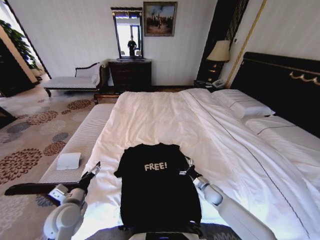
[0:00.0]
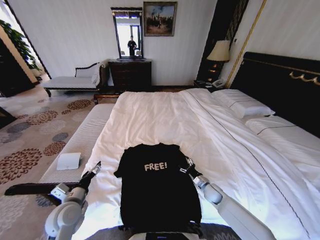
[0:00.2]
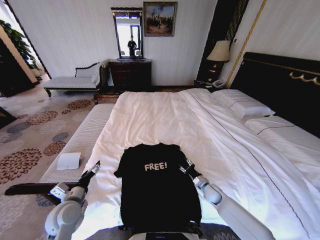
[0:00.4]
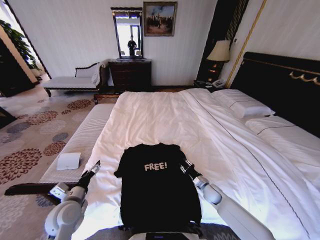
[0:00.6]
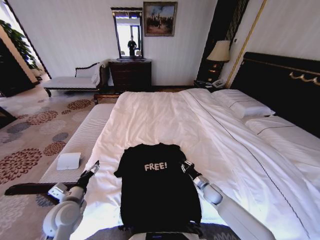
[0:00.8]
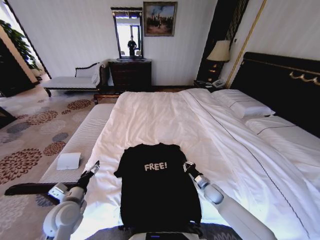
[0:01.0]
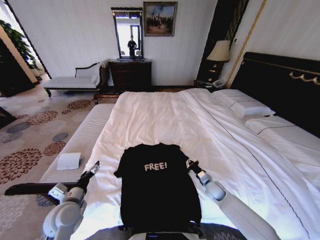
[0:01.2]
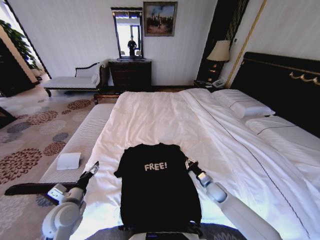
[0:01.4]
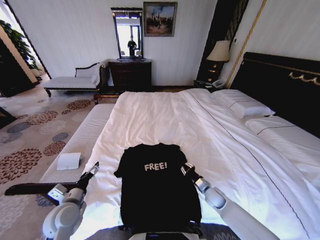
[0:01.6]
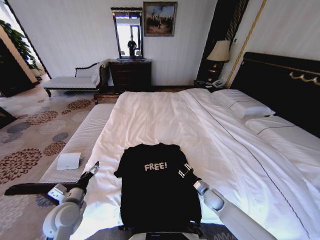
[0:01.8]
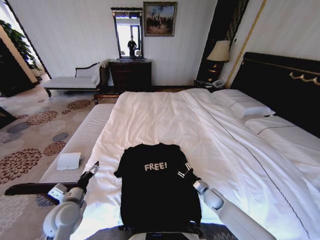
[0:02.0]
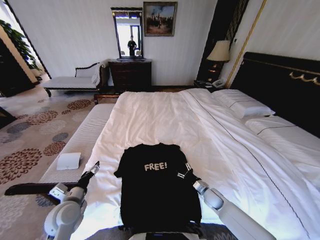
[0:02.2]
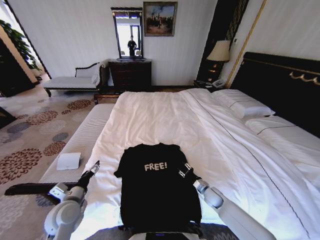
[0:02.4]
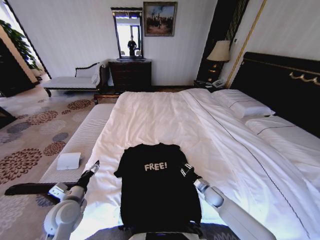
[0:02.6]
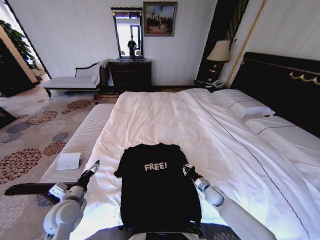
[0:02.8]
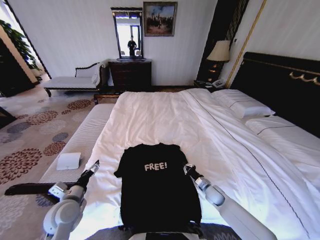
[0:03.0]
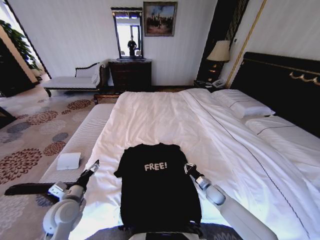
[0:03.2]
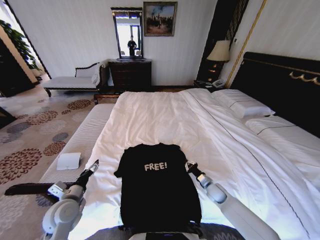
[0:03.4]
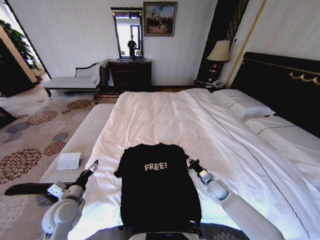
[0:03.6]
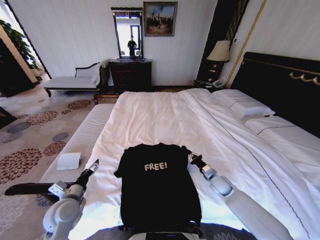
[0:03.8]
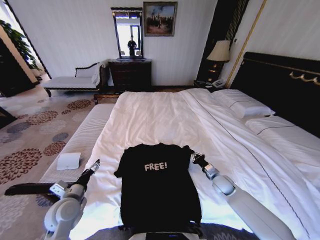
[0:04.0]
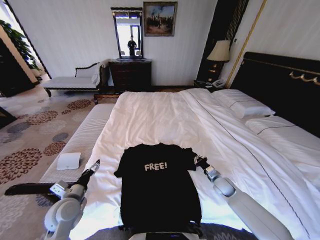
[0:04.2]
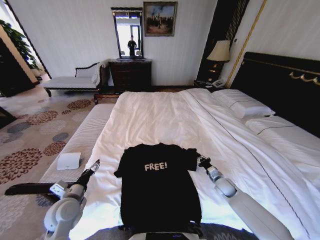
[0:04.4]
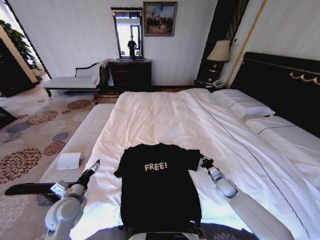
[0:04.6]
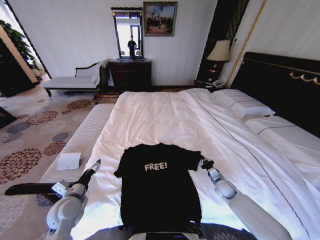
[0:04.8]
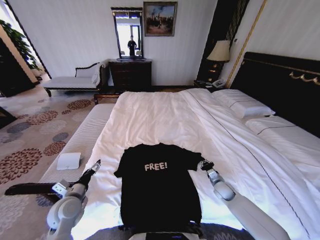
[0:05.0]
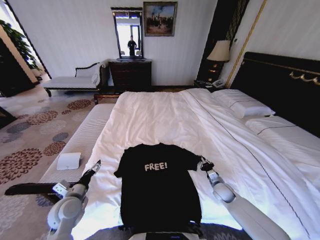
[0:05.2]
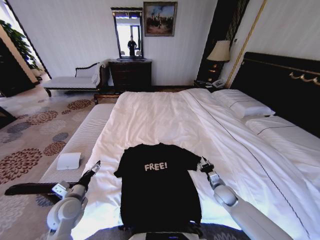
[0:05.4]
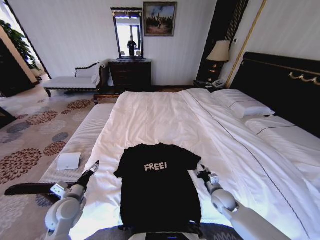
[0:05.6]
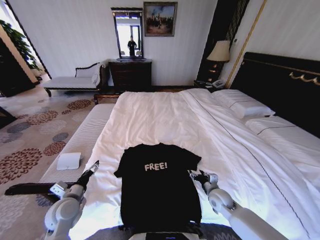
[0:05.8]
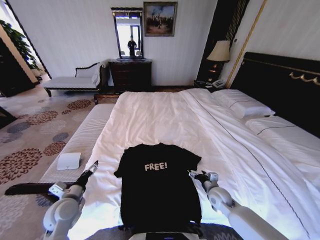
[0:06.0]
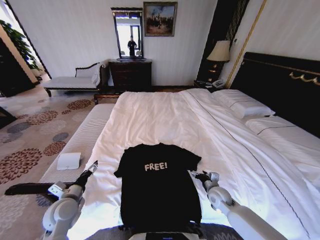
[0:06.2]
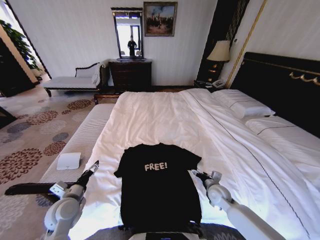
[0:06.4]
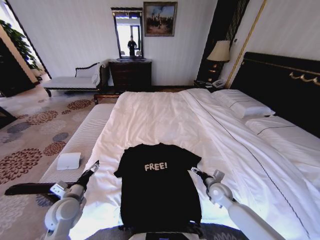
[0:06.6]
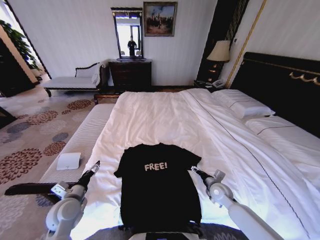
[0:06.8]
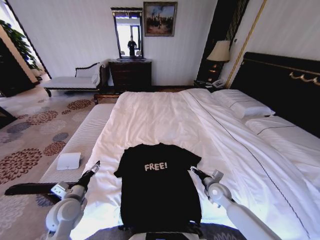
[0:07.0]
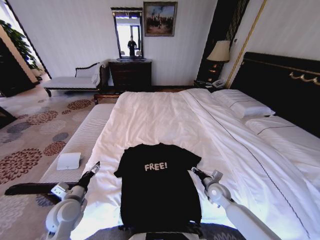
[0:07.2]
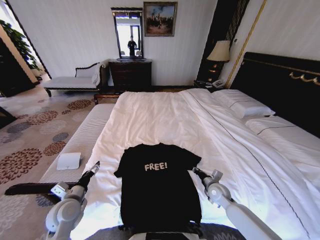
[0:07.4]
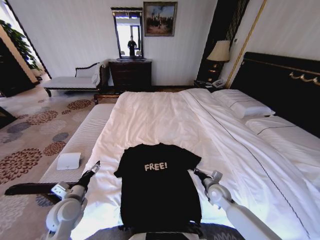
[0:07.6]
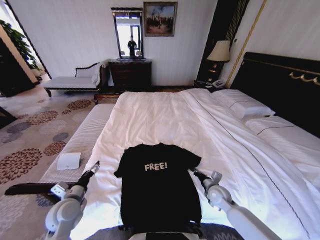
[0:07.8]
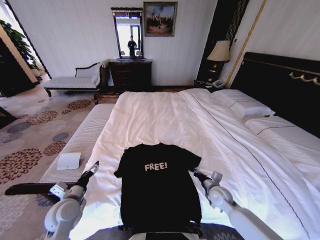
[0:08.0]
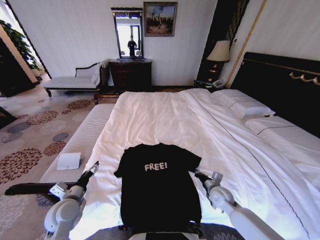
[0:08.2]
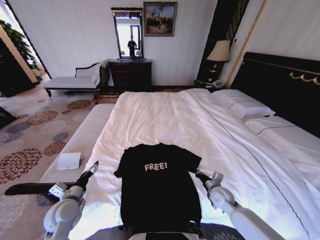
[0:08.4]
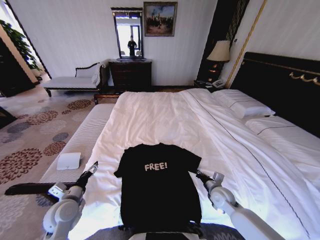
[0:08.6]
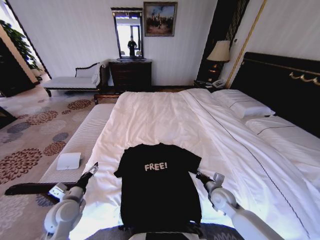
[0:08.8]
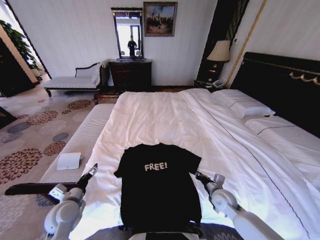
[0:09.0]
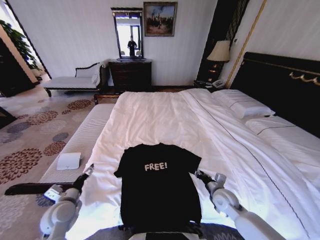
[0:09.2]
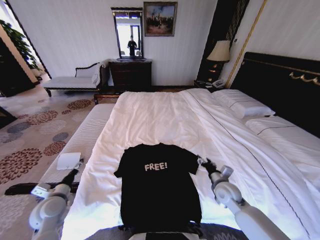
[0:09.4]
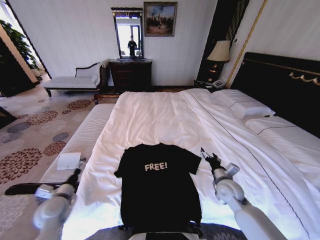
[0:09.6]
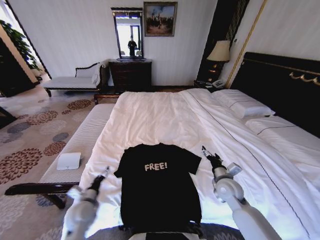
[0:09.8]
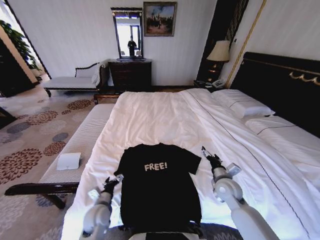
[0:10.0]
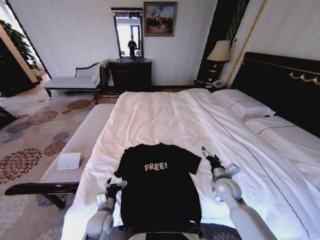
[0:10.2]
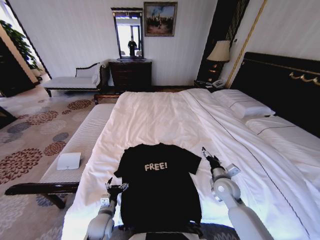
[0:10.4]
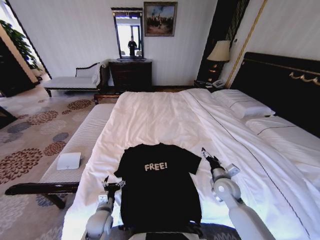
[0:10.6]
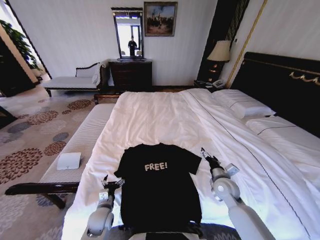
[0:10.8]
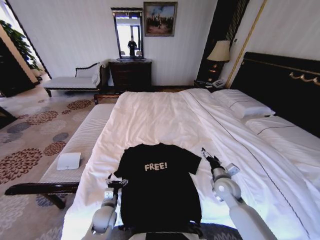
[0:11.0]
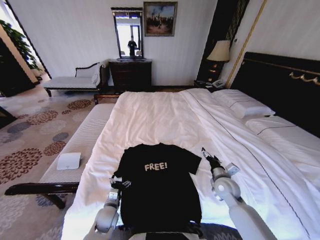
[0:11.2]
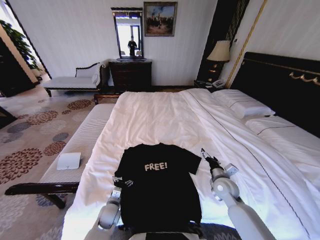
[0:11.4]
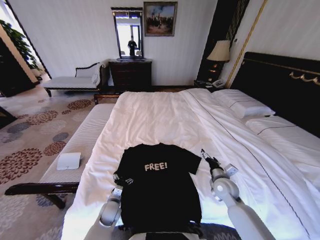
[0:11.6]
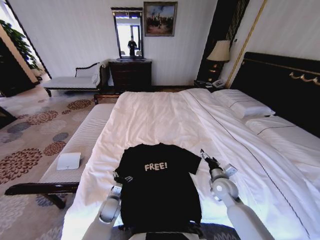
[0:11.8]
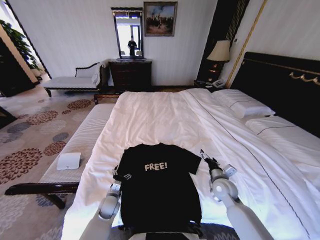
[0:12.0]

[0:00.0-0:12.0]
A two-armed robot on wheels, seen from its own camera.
Task of the whole recording: Fold the clothes on the bed.
0:00.0 to 0:01.6: The right gripper closes.
0:01.6 to 0:03.0: The right gripper opens and closes again.
0:03.0 to 0:04.4: The right gripper changes place by roughly 5 cm.
0:04.4 to 0:06.0: The right gripper moves to the left and backward, some 10 cm, and opens.
0:06.0 to 0:07.6: The right gripper closes up.
0:07.6 to 0:09.0: There are only small adjustments of the grippers.
0:09.0 to 0:10.4: The right gripper travels upward by roughly 5 cm, and opens. Meanwhile the left gripper shifts about 15 cm to the right and downward.
0:10.4 to 0:12.0: The left gripper heads forward, covering some 10 cm.

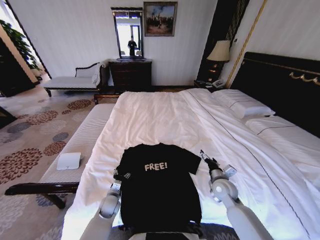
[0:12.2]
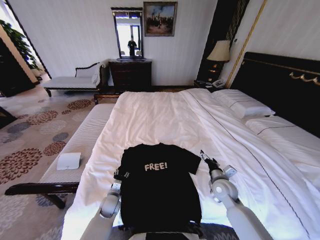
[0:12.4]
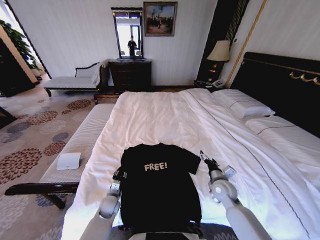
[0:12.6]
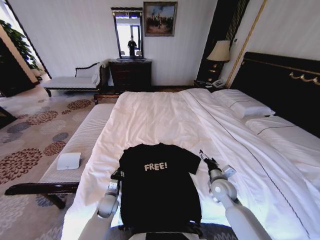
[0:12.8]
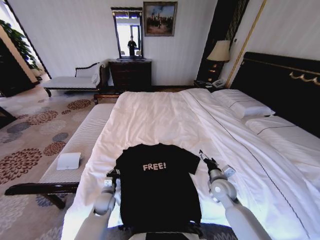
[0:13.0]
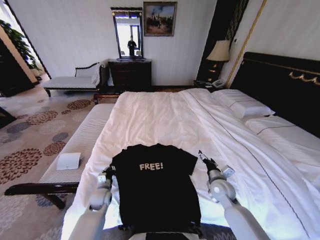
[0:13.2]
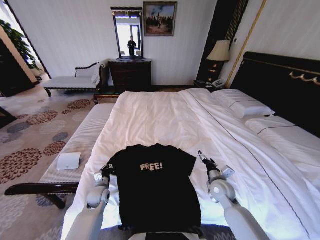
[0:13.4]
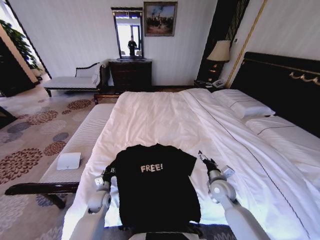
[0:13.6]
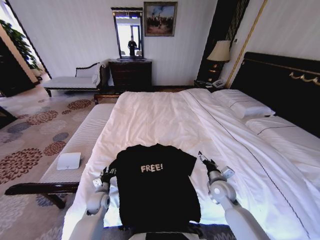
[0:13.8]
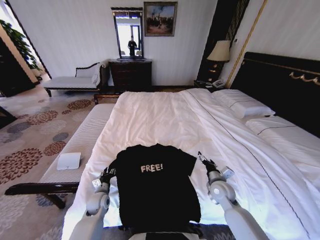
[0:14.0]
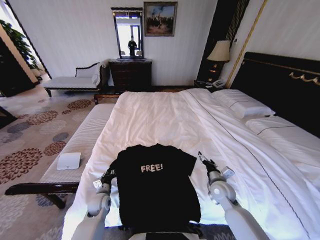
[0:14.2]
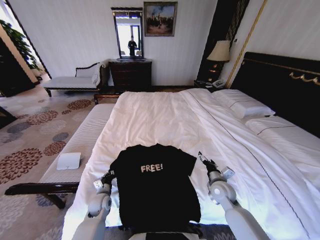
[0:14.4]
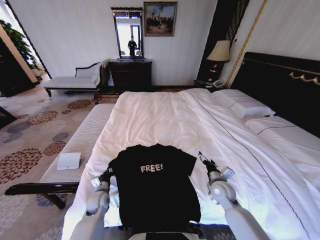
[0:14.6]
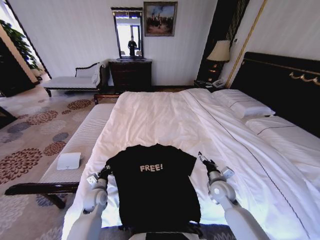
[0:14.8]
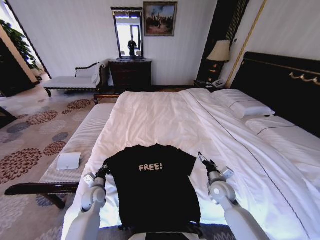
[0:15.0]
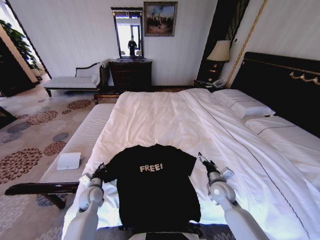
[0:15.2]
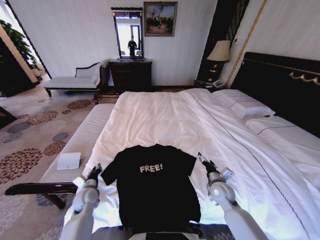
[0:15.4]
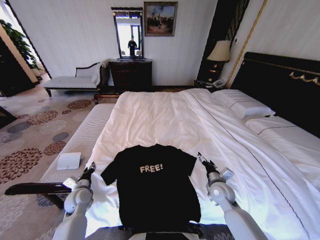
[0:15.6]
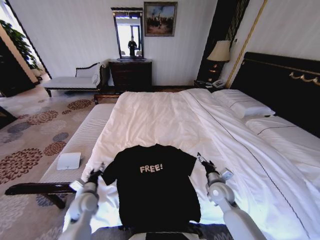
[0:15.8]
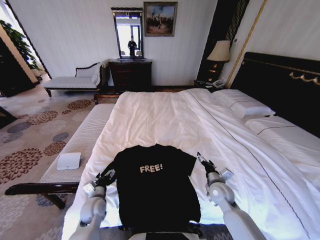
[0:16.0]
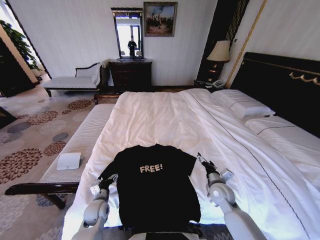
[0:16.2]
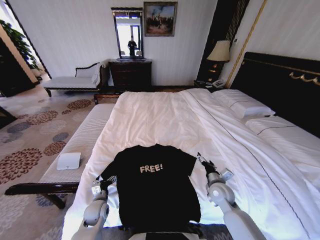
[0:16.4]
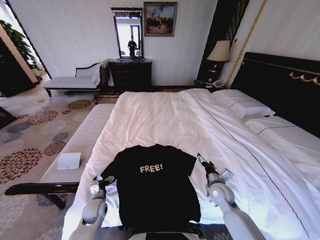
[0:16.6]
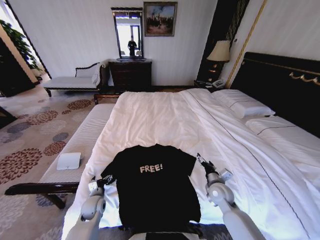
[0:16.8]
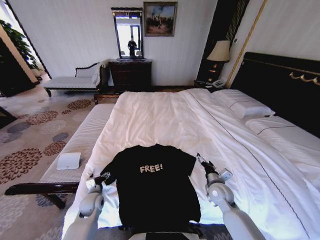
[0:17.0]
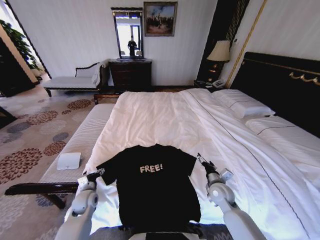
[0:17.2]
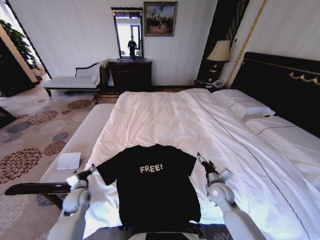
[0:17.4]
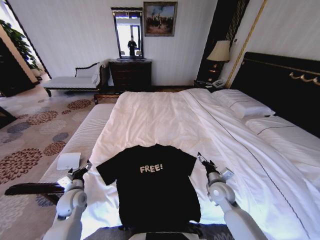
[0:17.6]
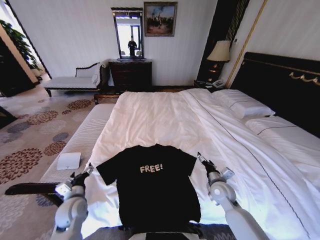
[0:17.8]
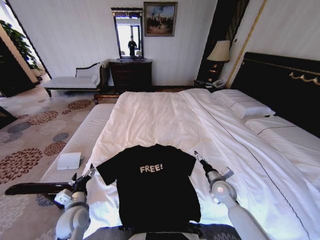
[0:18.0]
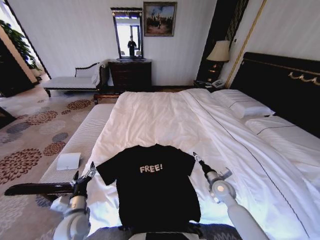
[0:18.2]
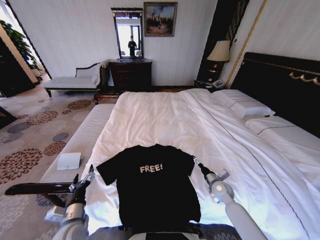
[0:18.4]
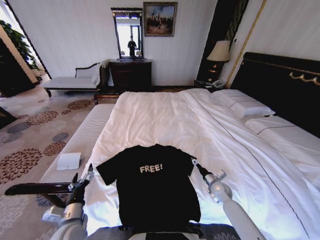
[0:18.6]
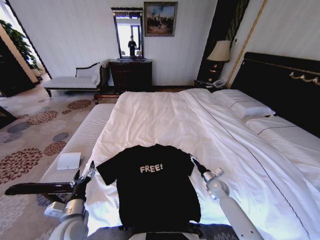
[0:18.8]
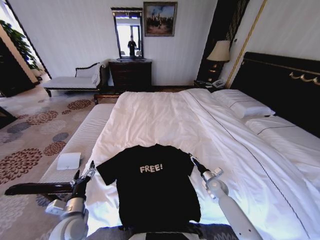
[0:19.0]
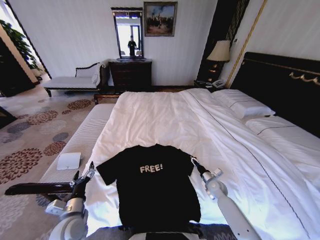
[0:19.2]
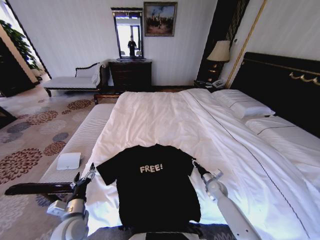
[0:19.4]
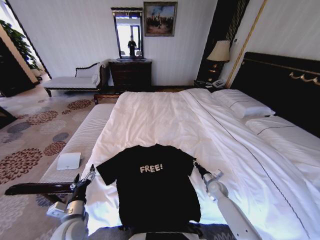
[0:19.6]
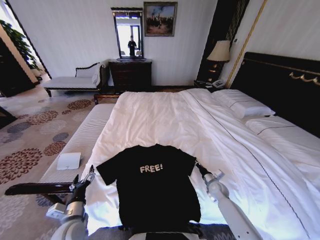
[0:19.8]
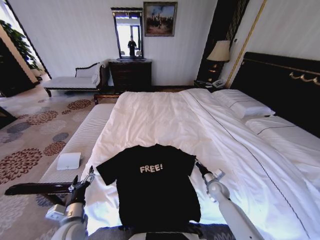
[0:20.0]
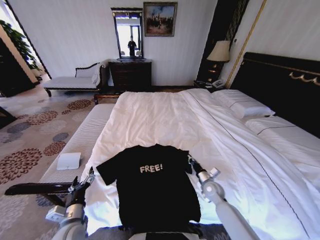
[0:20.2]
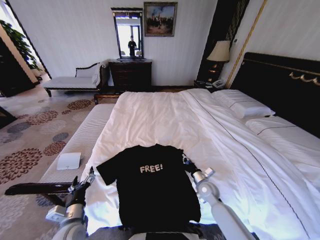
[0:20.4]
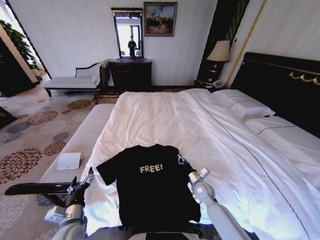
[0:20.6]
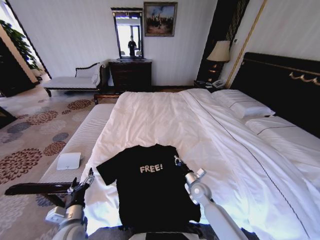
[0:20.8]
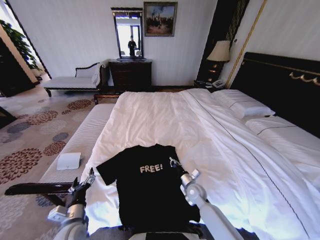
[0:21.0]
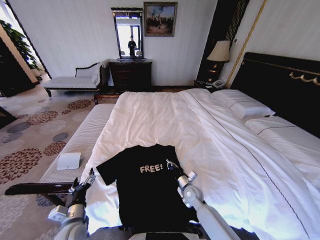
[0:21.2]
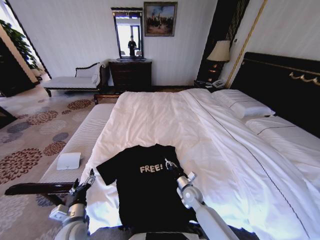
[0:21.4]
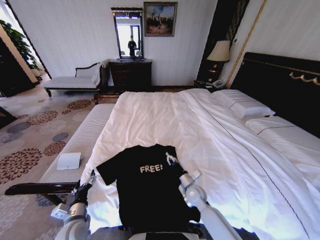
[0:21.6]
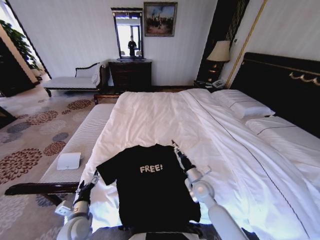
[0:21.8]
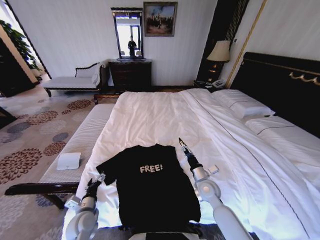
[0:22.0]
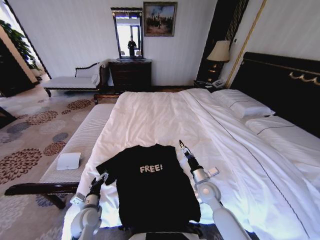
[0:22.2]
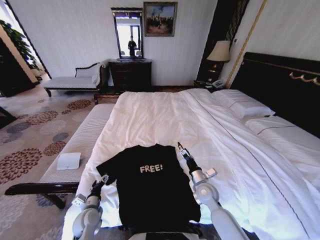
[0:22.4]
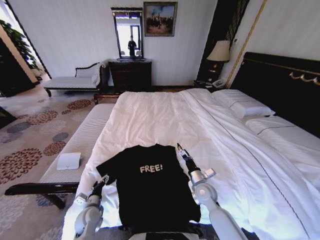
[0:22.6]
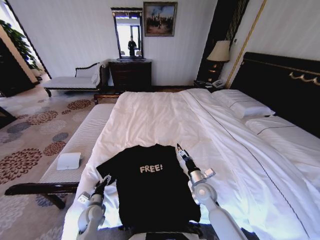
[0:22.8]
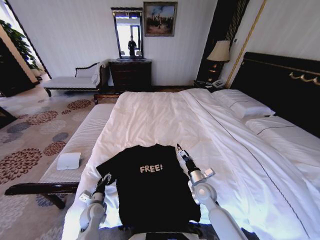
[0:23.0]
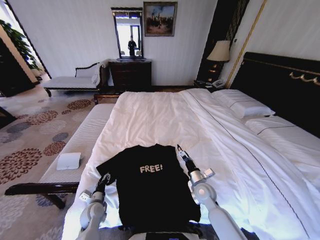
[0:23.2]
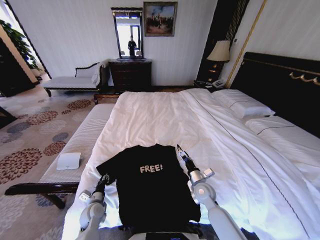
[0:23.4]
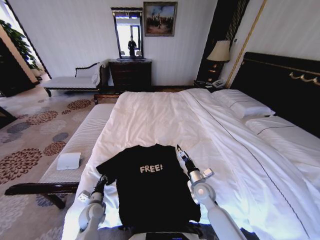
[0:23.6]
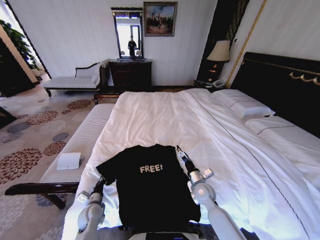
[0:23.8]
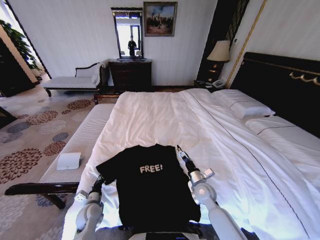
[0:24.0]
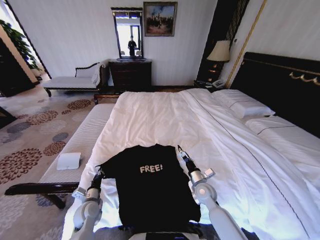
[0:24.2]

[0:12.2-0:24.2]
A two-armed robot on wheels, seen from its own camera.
Task of the whole recording: Fold the clothes on the bed.
0:12.2 to 0:13.8: The left gripper changes place by approximately 5 cm, and closes, then opens again.
0:13.8 to 0:15.2: The left gripper changes place by approximately 5 cm, and closes up.
0:15.2 to 0:16.6: The left gripper travels to the left and back again, some 5 cm each way, and opens.
0:16.6 to 0:18.2: The left gripper heads upward and backward, covering about 10 cm.
0:18.2 to 0:19.8: The right gripper heads downward, covering some 10 cm, and closes its fingers.
0:19.8 to 0:21.2: The right gripper shifts some 15 cm to the left.
0:21.2 to 0:22.6: The left gripper heads downward and forward, covering roughly 10 cm. The right gripper goes approximately 5 cm upward, and opens up.
0:22.6 to 0:24.2: The left gripper closes up.
